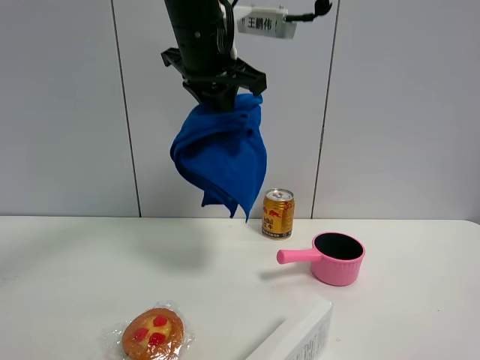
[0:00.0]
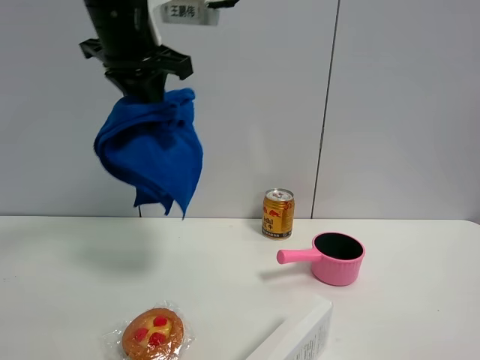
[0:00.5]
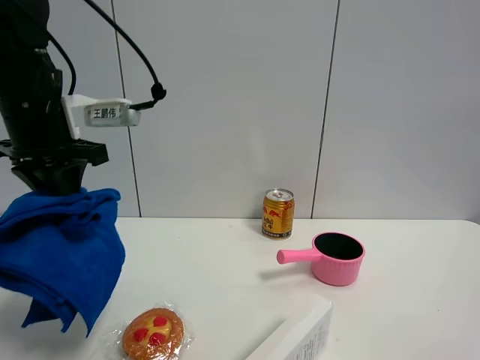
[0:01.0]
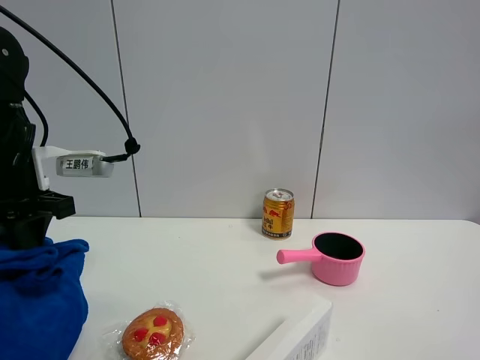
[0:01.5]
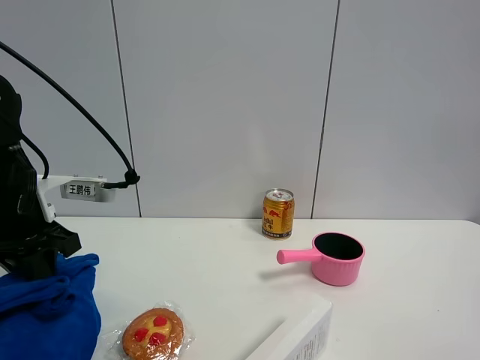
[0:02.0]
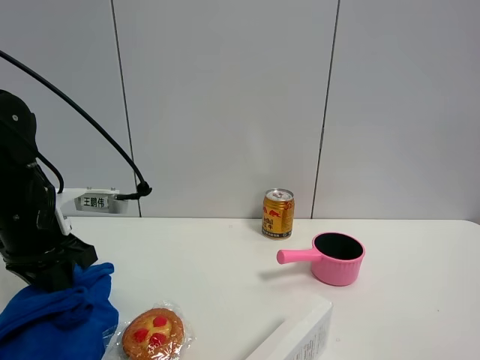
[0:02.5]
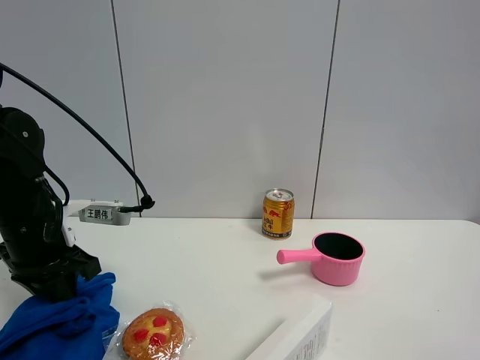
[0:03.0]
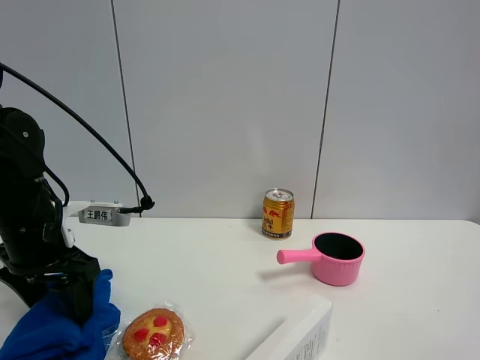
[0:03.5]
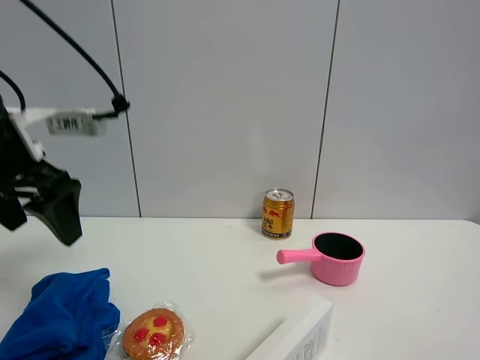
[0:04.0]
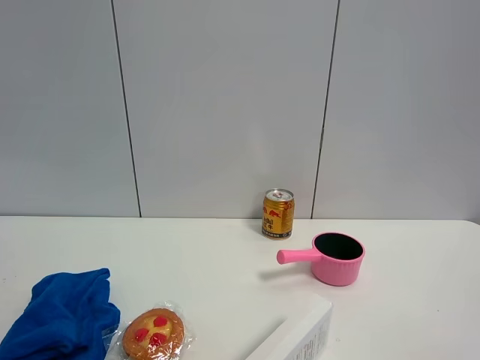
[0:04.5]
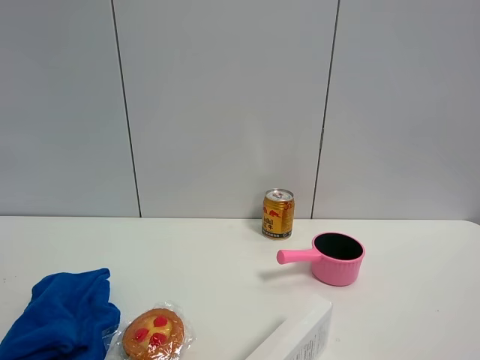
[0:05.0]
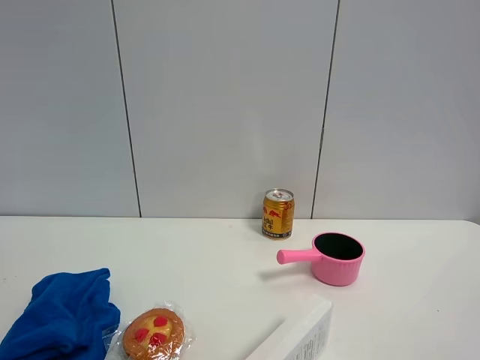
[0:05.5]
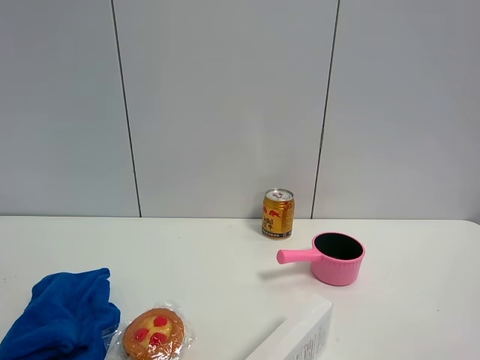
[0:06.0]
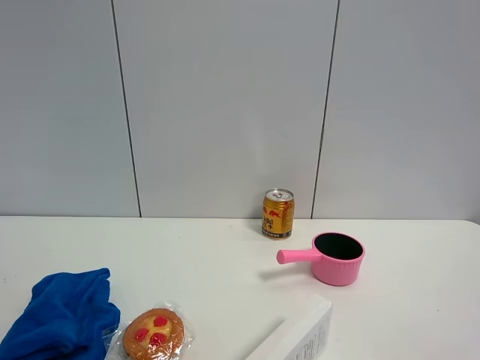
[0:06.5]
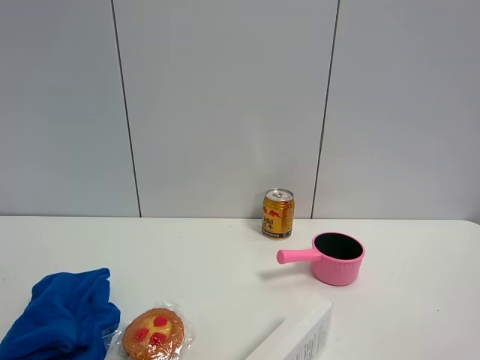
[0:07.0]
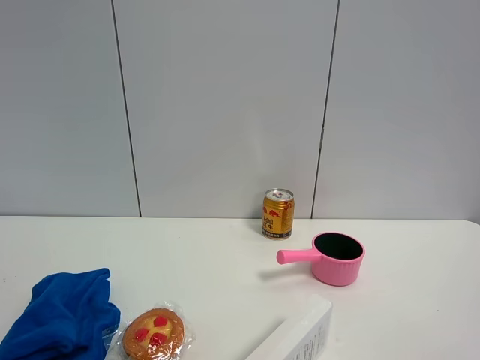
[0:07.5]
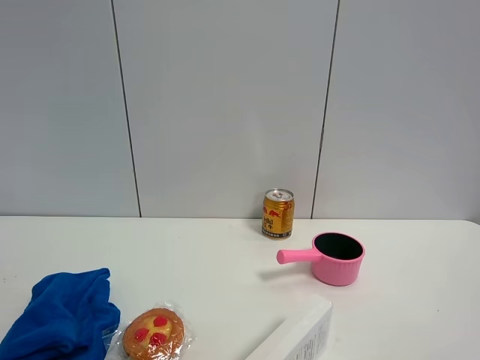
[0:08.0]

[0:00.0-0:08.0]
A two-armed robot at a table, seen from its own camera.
Task of the whole recording: the gripper move the object.
Step, 0:00.0 to 0:03.5: Place the blue towel on the table with the left gripper.
0:00.0 to 0:02.0: The left gripper travels to the left and downward by some 30 cm.
0:02.0 to 0:04.0: The left gripper is displaced upward by approximately 10 cm, and opens.
0:04.0 to 0:06.0: The left gripper travels backward by roughly 30 cm.

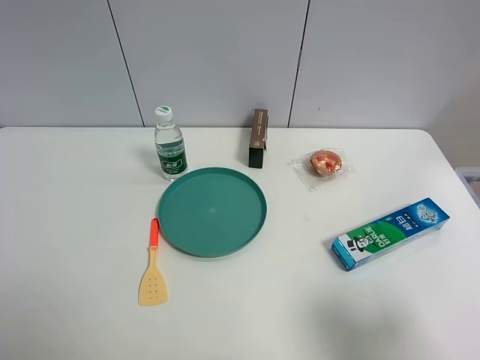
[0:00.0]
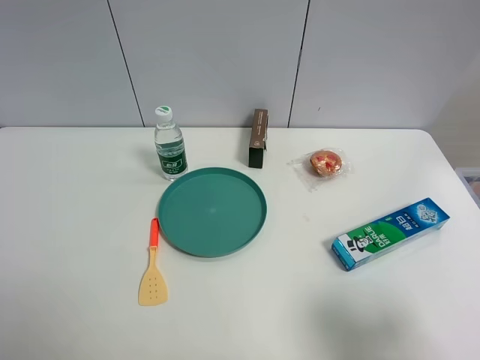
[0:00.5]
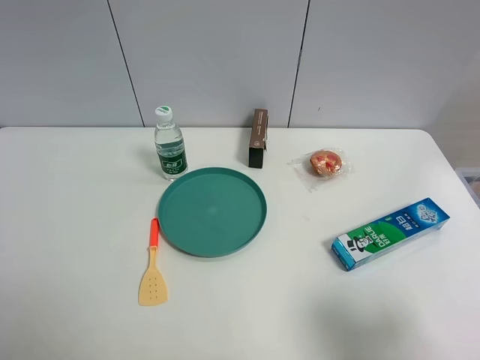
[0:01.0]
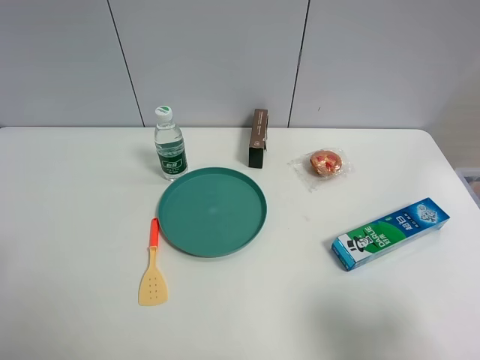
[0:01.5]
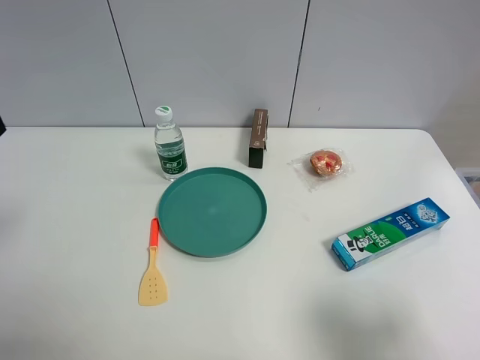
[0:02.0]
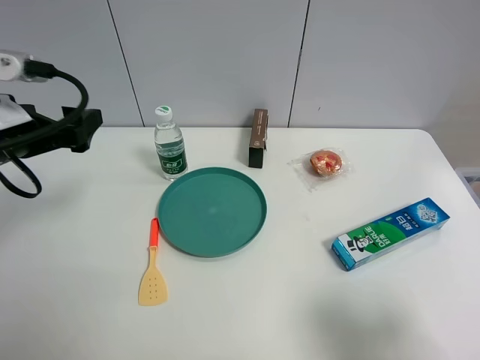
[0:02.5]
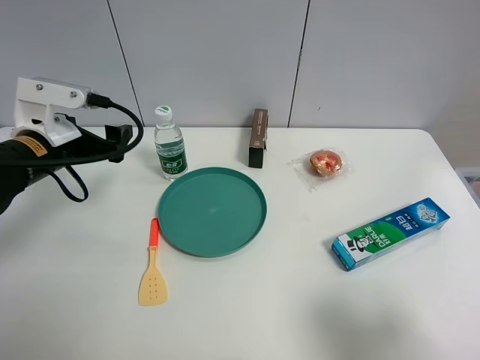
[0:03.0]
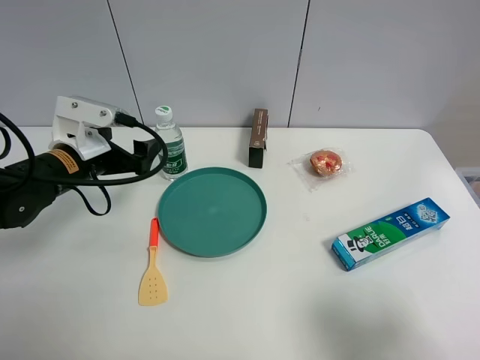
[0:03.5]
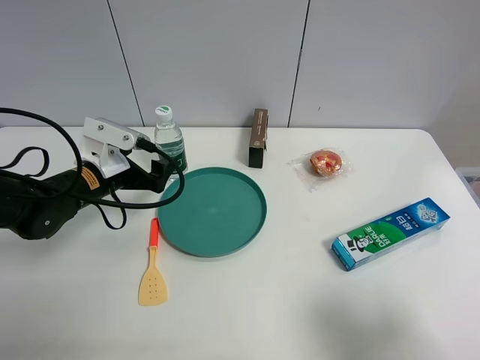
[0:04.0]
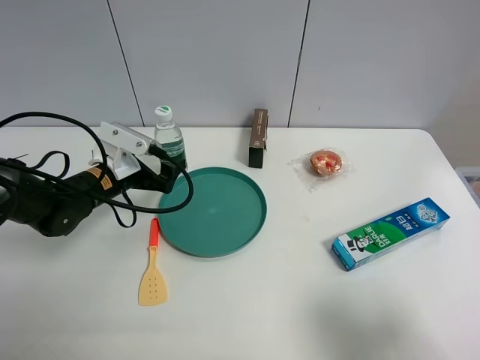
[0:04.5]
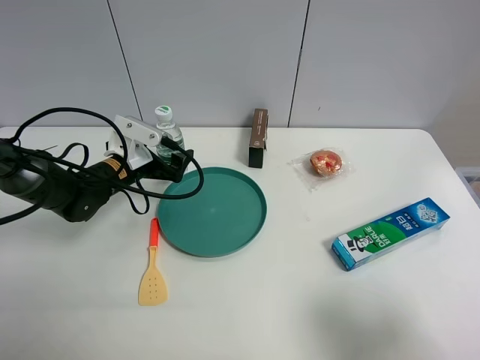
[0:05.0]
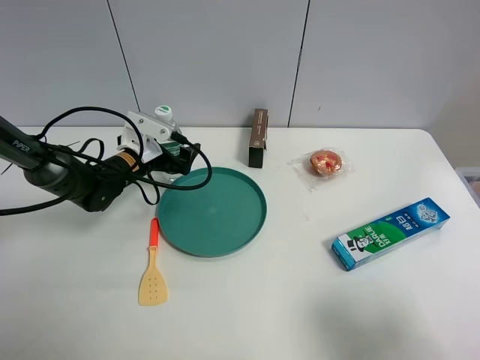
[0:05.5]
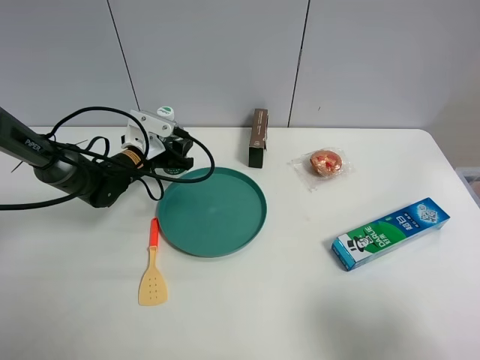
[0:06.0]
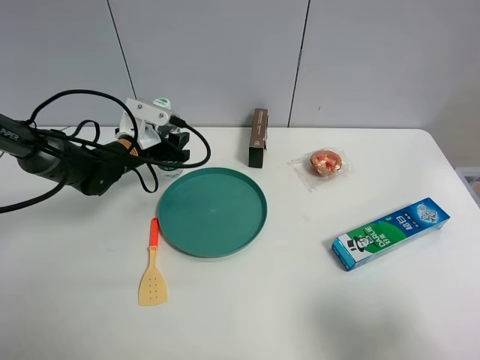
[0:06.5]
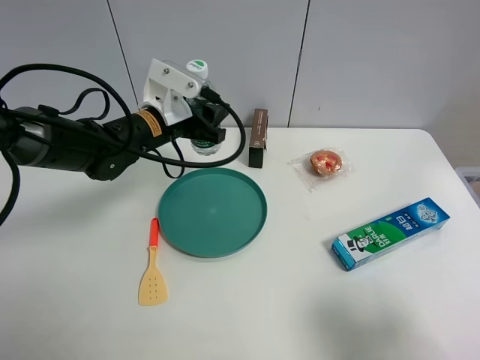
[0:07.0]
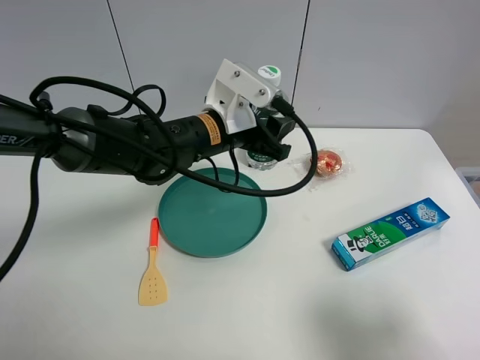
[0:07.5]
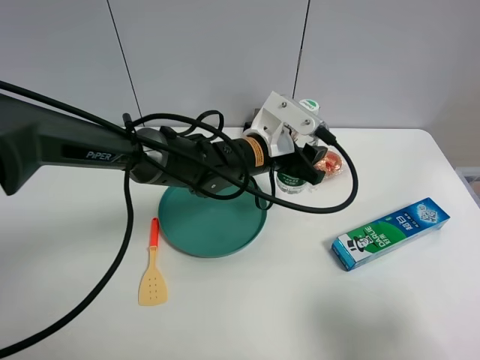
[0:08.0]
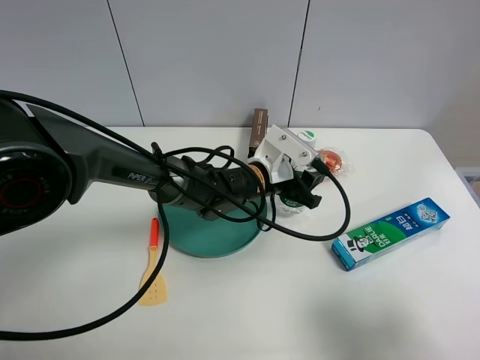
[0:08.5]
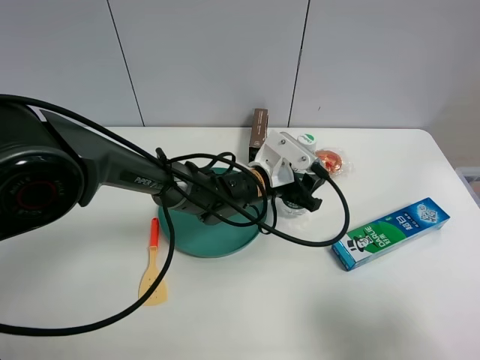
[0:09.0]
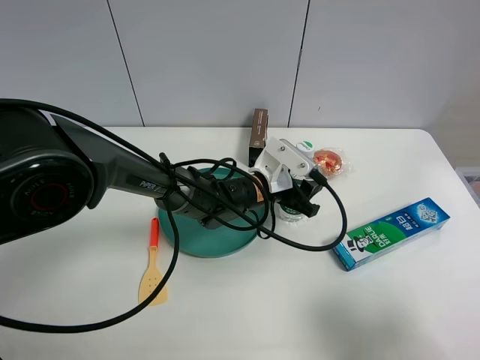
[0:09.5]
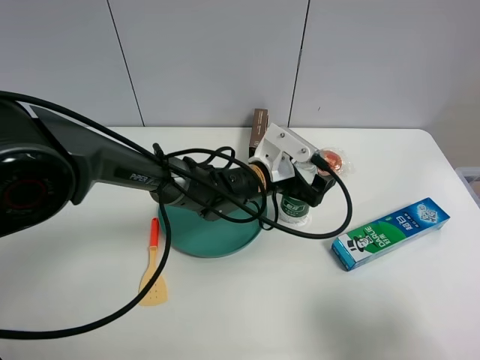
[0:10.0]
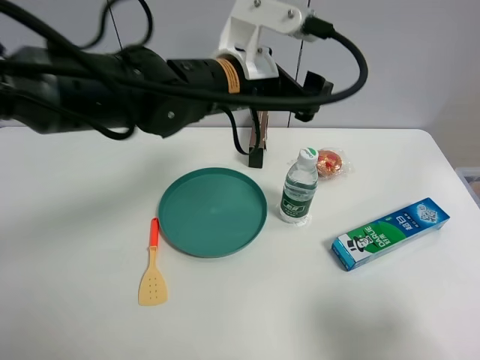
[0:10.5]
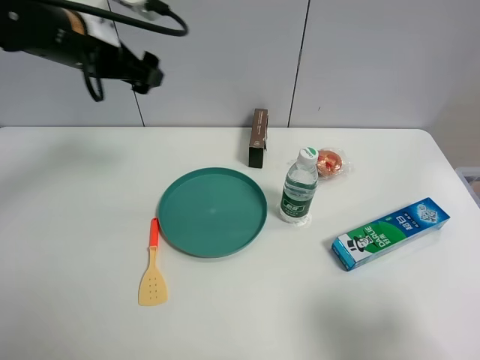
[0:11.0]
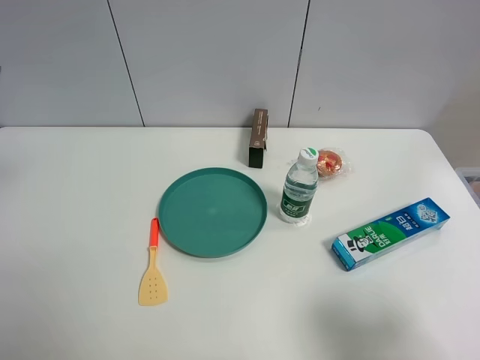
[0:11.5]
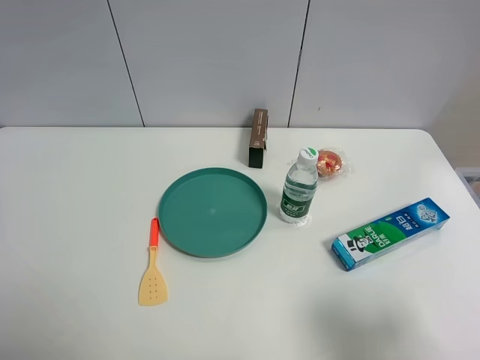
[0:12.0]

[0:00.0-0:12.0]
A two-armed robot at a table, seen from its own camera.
Task of the whole recording: the gripper move the object.
Step, 0:00.0 to 0:06.0: Grasp the YiBao mineral water with the left gripper.
Step, 0:06.5 to 0:10.0: Place the YiBao mineral water on the table with the left gripper.
0:02.0 to 0:04.0: The left gripper is displaced downward, forward and to the right by roughly 25 cm.
0:04.0 to 0:06.0: The left gripper goes roughly 10 cm forward and downward, and closes its fingers.
0:06.0 to 0:08.0: The left gripper is displaced to the right by approximately 20 cm.
0:08.0 to 0:10.0: The left gripper opens its fingers.
0:10.0 to 0:12.0: The left gripper shifts about 50 cm to the left, upward and backward.

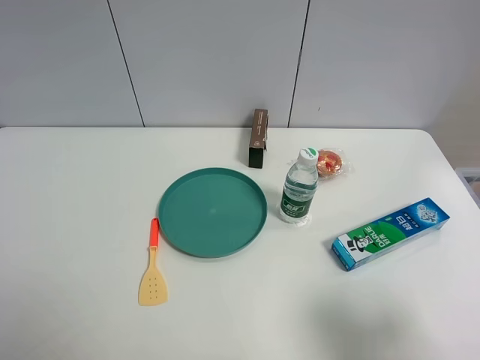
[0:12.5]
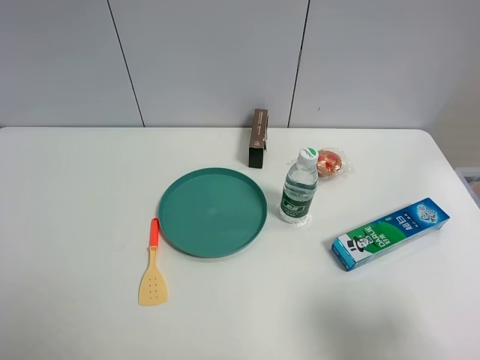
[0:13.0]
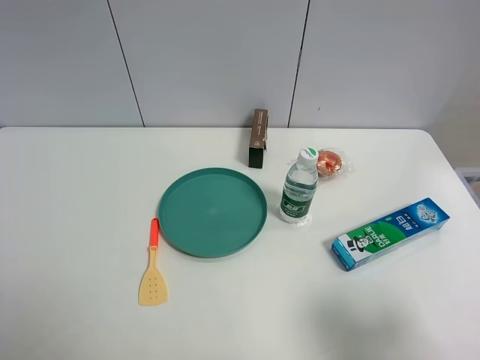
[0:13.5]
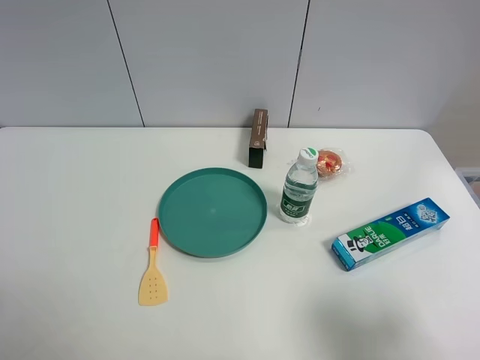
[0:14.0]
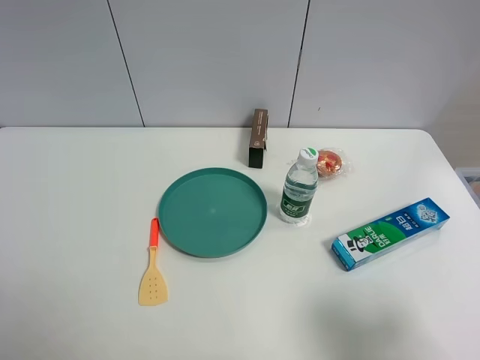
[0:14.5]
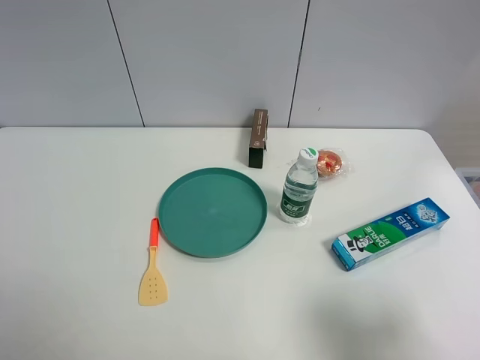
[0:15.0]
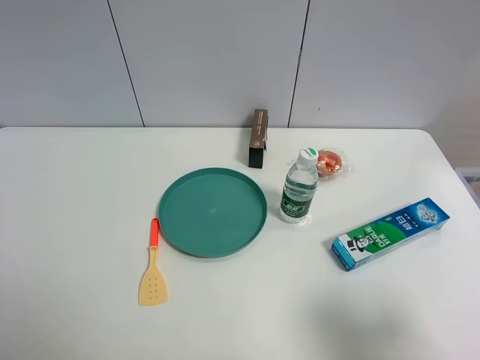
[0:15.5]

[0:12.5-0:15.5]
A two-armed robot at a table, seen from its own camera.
Task of the whole recording: the gripper move the object.
0:14.0 to 0:15.5: The two grippers keep their place.
